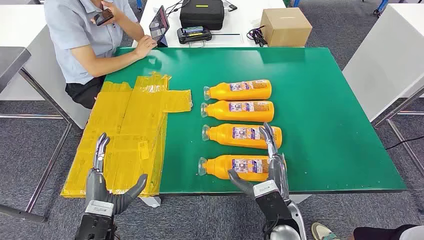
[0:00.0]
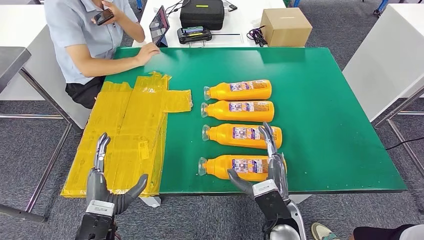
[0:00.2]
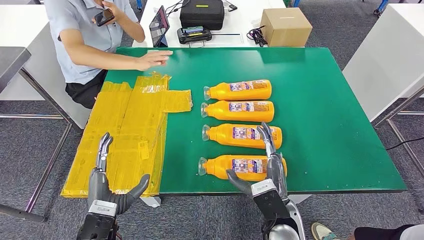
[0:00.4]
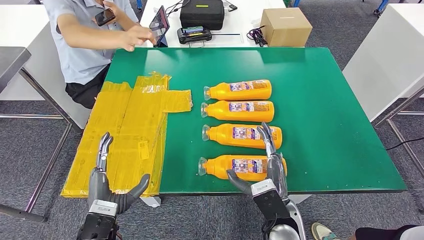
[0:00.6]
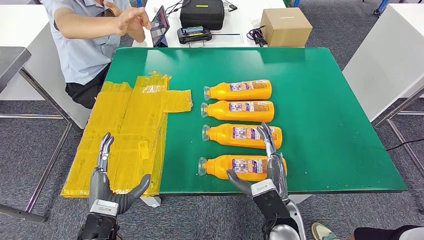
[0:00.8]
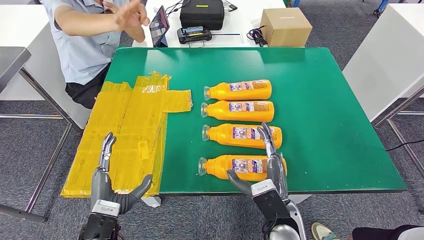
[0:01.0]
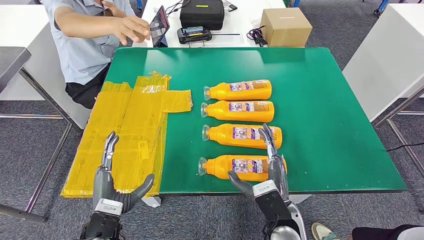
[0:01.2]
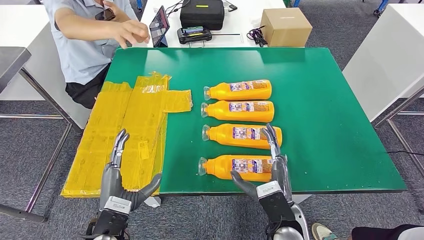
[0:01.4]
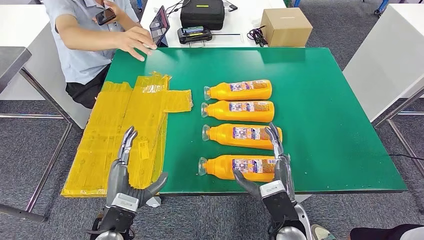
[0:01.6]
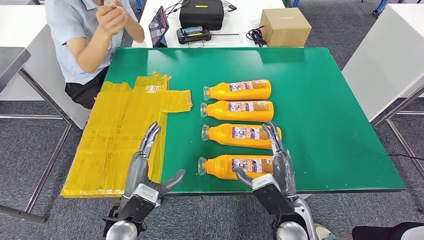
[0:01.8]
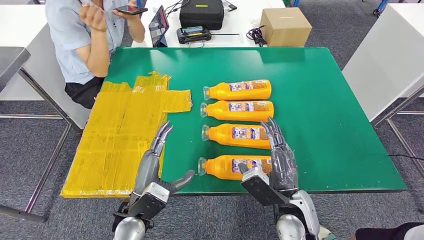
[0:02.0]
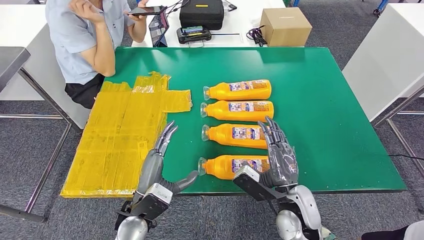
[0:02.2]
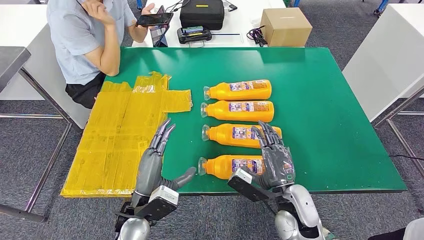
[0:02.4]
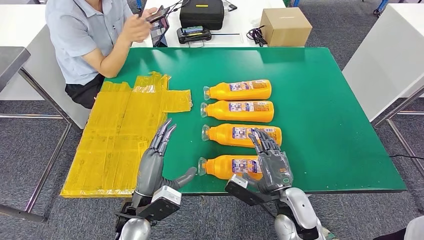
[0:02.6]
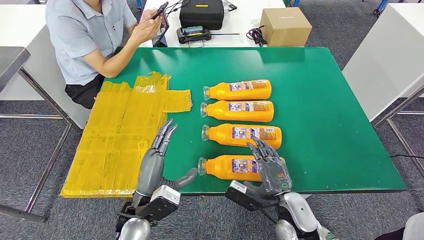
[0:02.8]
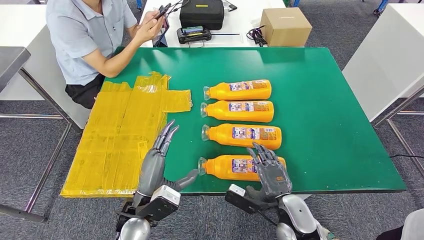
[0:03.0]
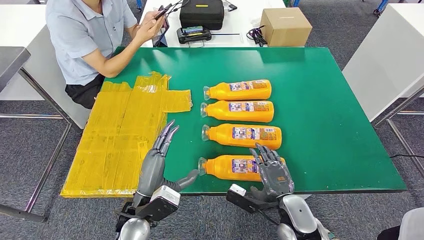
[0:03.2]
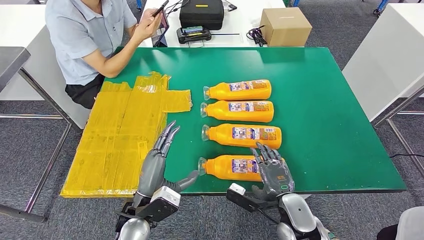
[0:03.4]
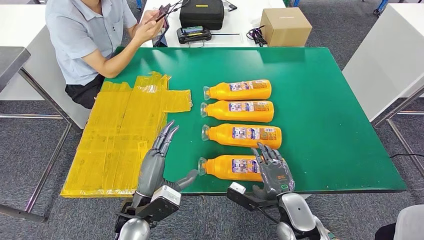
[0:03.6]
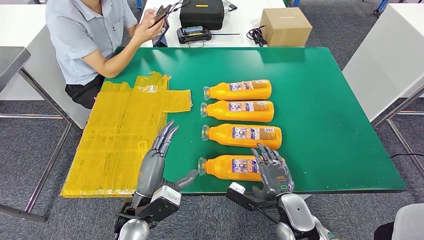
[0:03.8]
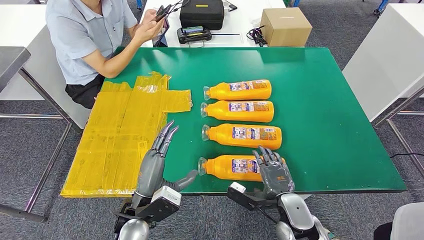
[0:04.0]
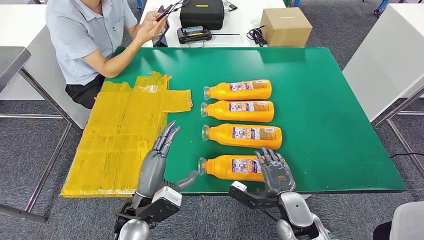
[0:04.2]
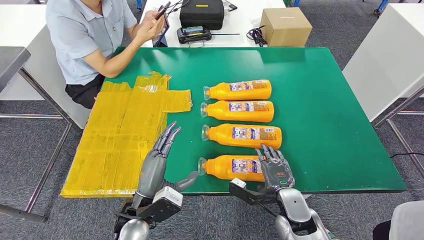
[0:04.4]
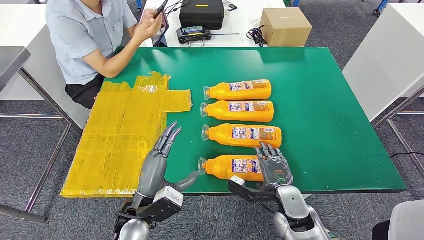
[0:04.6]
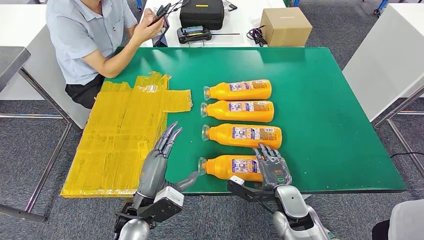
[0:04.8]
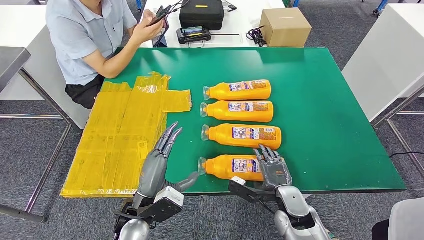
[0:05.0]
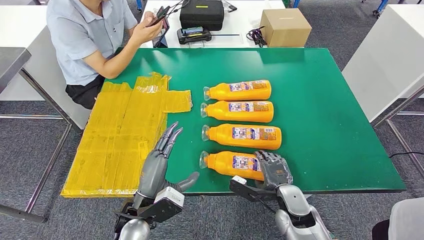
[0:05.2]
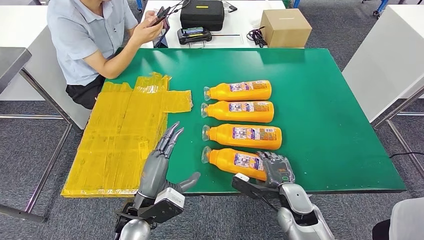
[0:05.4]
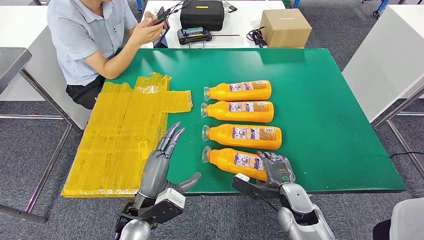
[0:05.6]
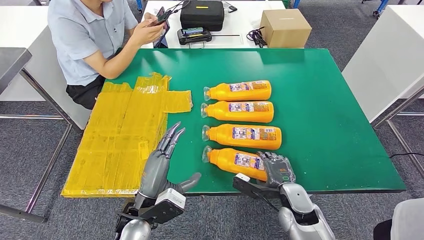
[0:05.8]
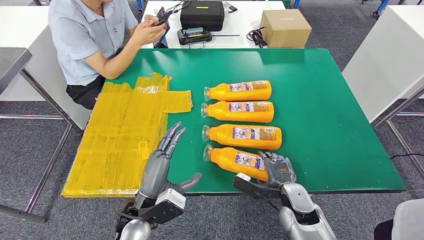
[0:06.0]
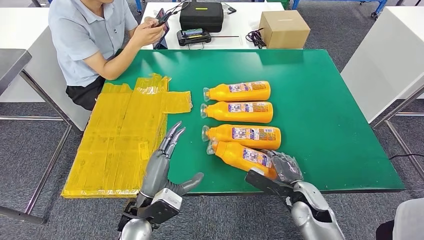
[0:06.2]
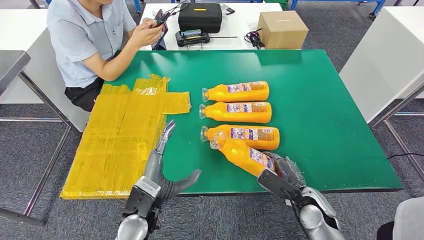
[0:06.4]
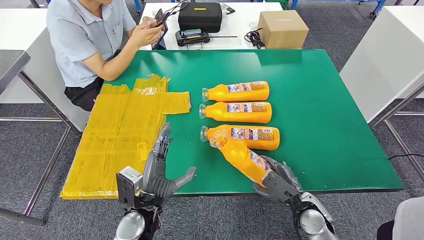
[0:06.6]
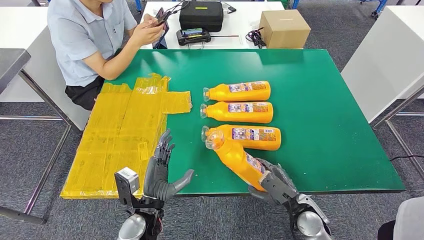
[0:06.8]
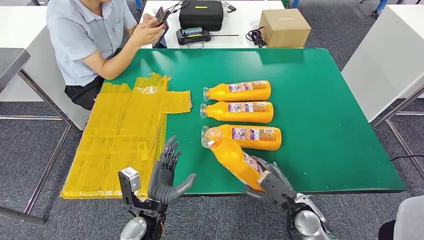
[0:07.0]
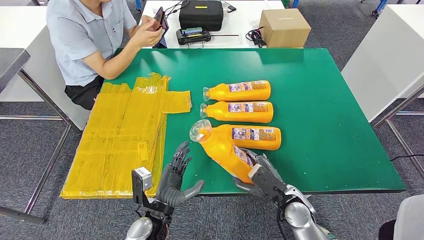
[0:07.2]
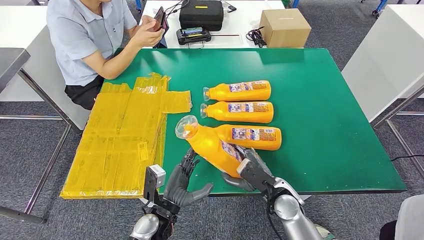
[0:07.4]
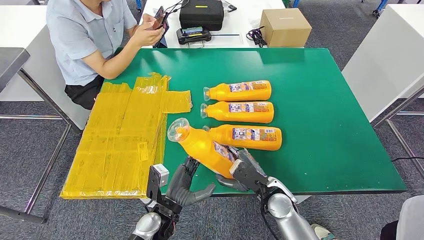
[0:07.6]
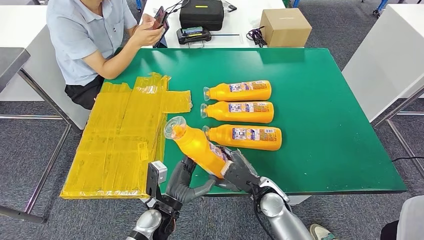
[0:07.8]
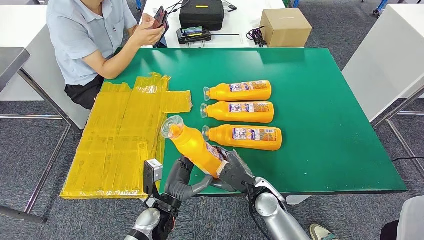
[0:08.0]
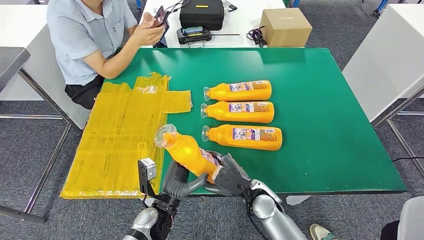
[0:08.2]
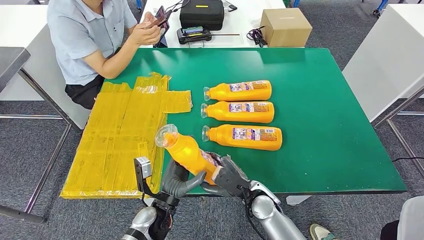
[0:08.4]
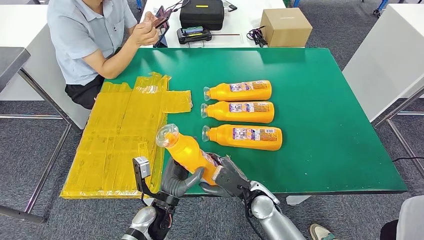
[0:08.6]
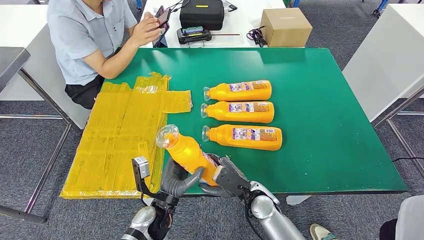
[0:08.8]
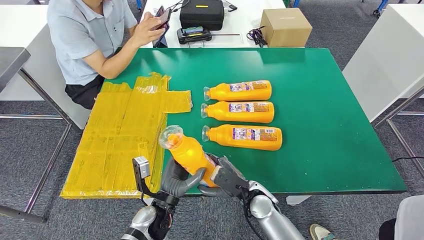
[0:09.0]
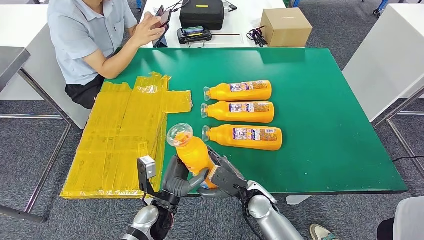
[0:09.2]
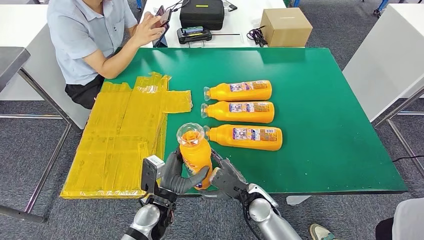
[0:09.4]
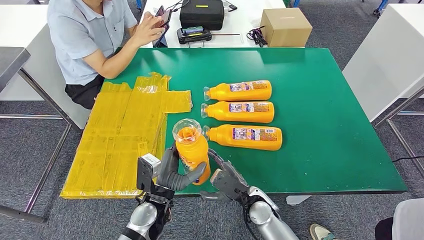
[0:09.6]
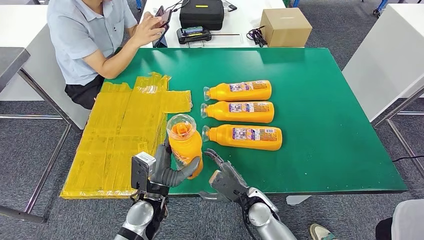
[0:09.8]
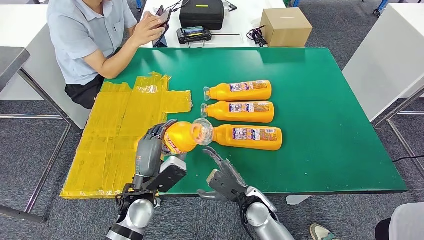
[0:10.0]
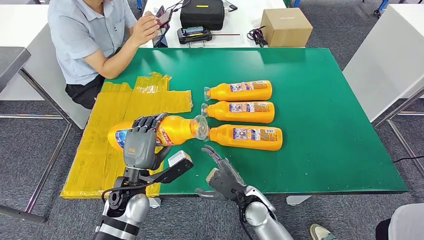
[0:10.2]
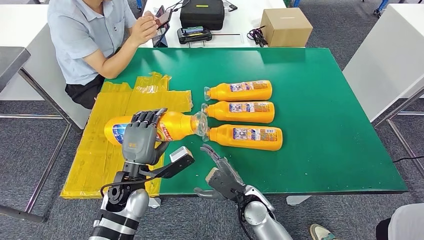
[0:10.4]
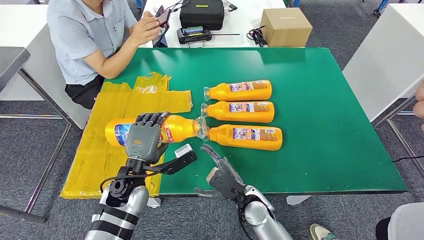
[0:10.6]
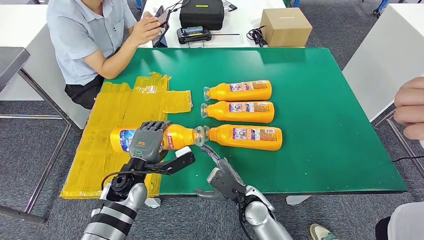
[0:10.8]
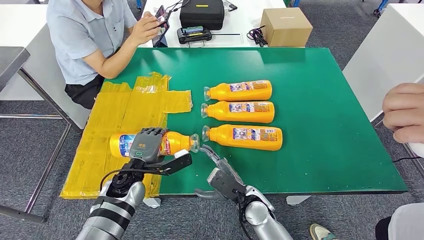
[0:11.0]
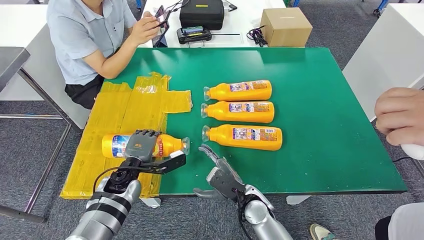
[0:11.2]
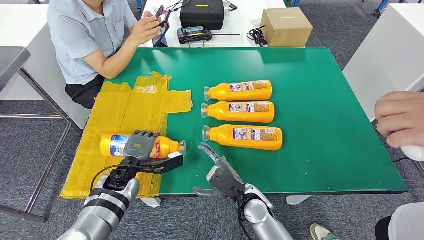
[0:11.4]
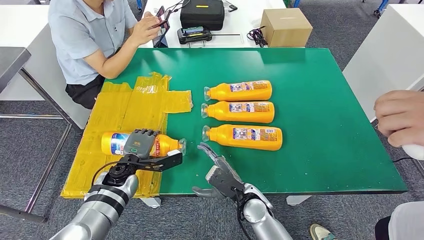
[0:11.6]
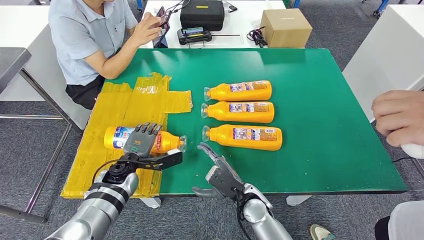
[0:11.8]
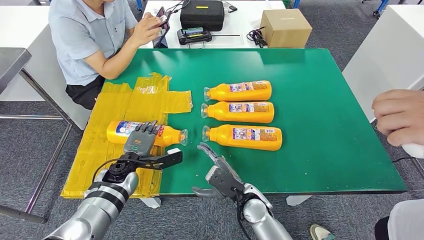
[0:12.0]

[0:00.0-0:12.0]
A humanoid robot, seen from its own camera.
Step, 0:00.0 to 0:07.2: Take the fast-moving consumer goods bottle from the table.
0:01.6 to 0:03.0: The right hand is displaced downward by approximately 5 cm, while the left hand heads to the right, covering approximately 5 cm.
0:03.0 to 0:04.4: The hands stay close to where they were, moving slightly.
0:04.4 to 0:06.0: The hands make only small movements.
0:06.0 to 0:07.6: The left hand shifts about 10 cm downward; the right hand travels to the left by about 5 cm.
0:07.6 to 0:09.0: The hands make only small movements.
0:09.0 to 0:10.4: The left hand is displaced upward and to the left by some 10 cm.
0:10.4 to 0:12.0: The left hand moves downward and forward, roughly 10 cm.

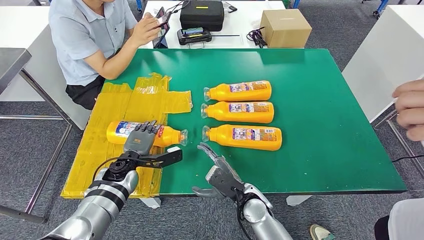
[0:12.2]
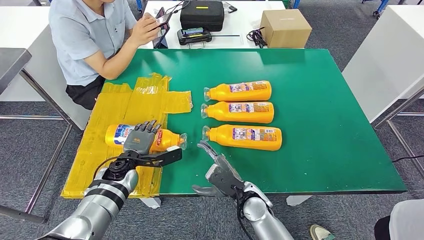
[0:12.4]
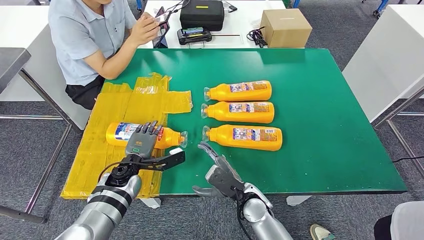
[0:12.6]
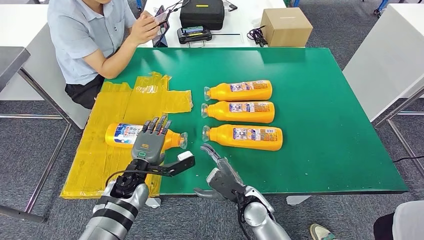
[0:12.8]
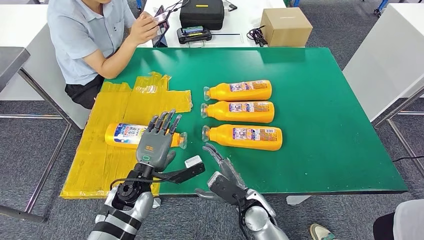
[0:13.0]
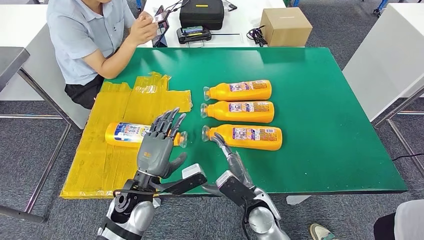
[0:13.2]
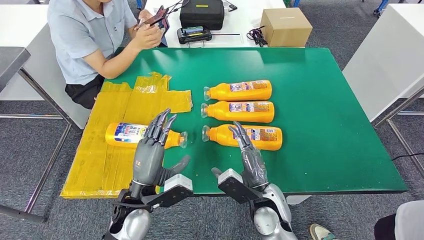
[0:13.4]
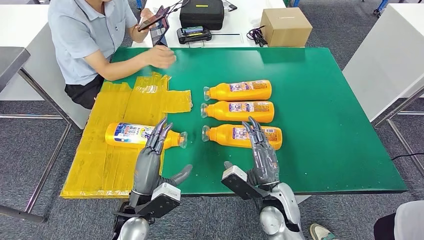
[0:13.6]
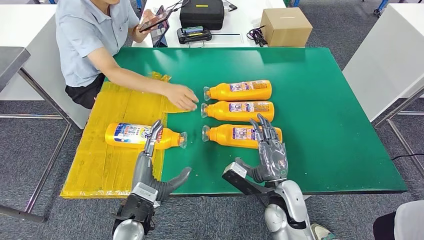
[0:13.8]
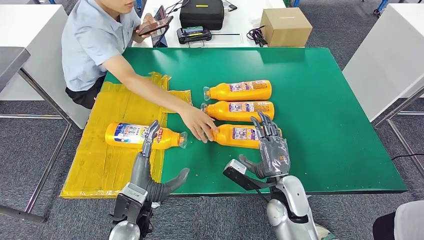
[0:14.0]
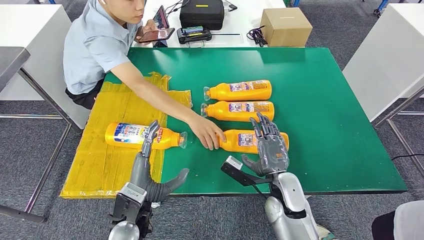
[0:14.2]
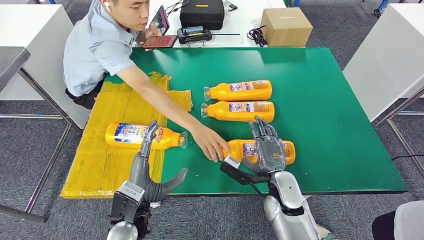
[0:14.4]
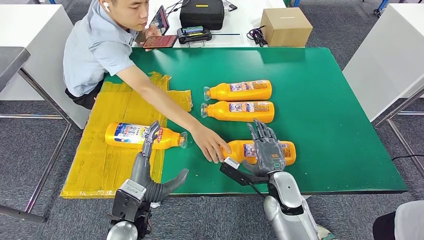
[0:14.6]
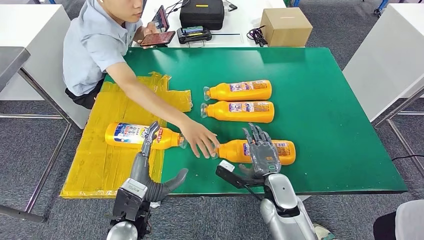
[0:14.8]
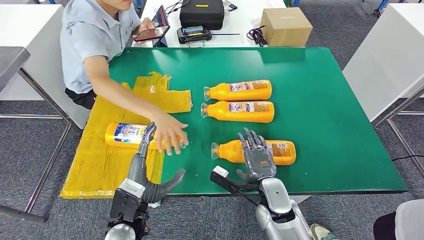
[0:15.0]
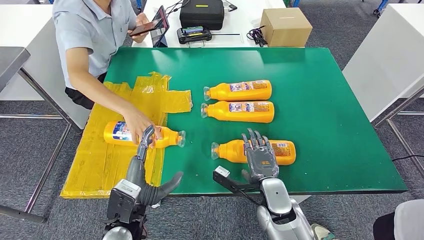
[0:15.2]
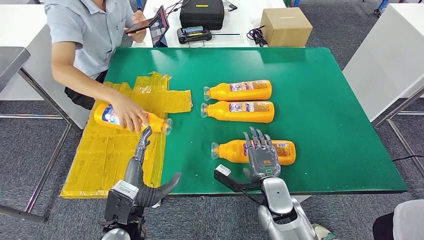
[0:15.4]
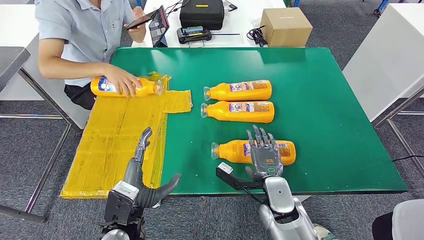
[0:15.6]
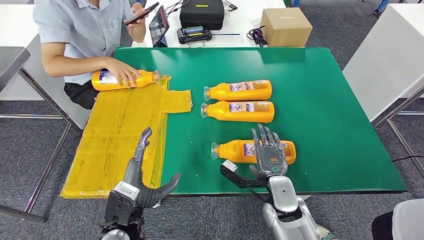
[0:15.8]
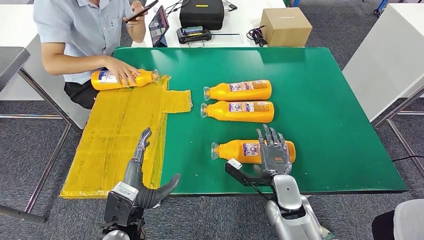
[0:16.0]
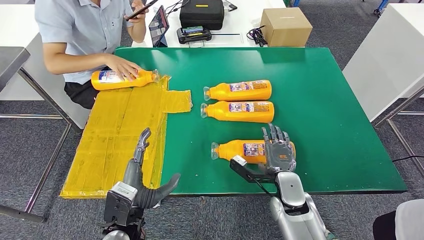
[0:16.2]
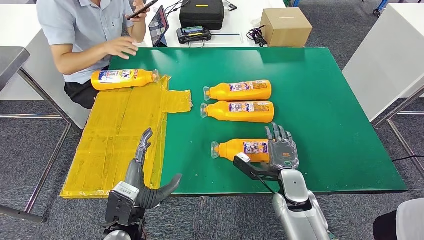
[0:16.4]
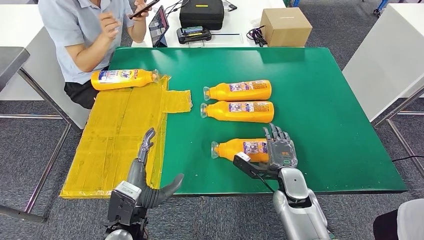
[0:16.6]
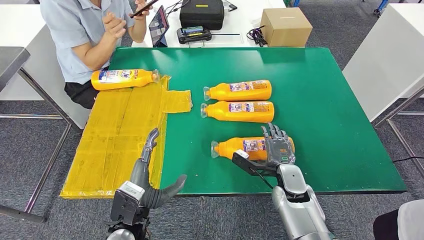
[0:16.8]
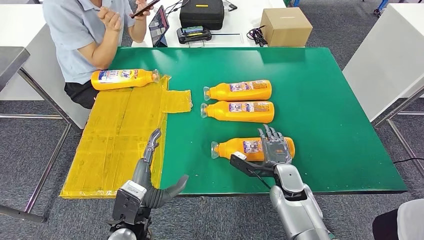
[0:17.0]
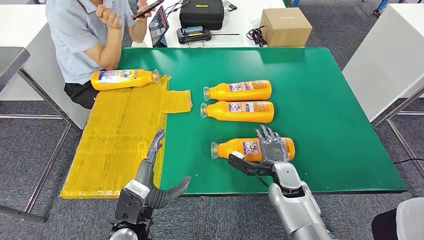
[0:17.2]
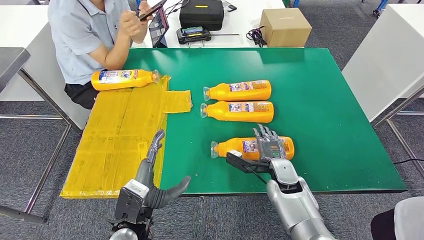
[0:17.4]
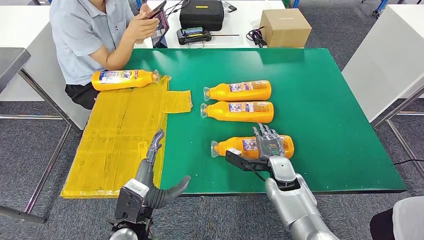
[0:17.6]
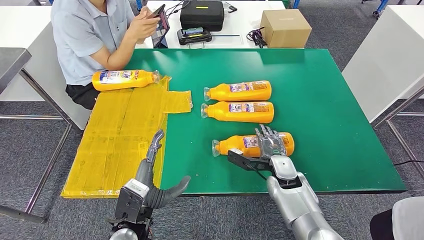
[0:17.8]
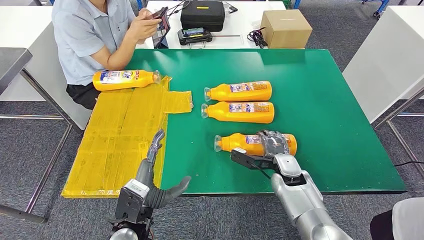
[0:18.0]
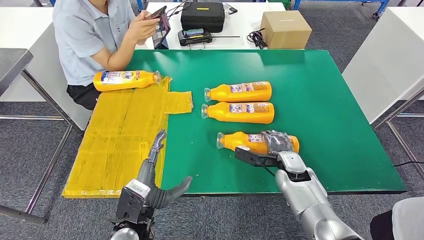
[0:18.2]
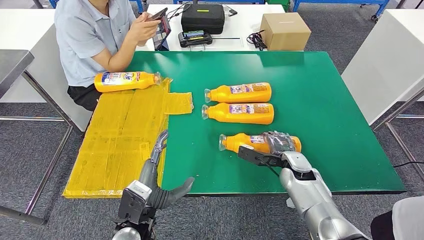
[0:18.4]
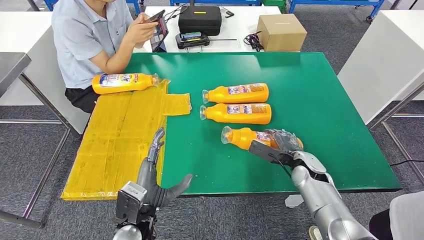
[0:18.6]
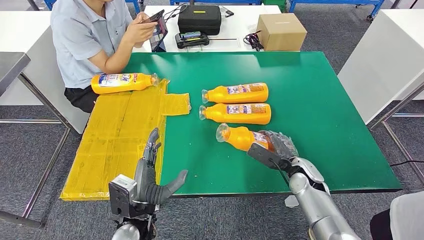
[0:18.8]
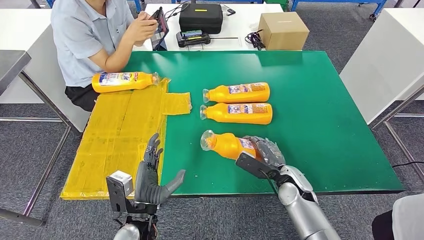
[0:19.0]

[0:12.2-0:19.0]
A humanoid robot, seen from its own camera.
0:15.0 to 0:16.2: The hands stay close to where they were, moving slightly.
0:16.2 to 0:17.6: The right hand goes roughly 5 cm forward.
0:17.6 to 0:19.0: The right hand reaches roughly 10 cm to the right, then returns.
